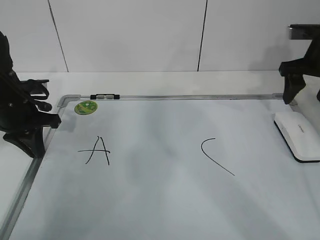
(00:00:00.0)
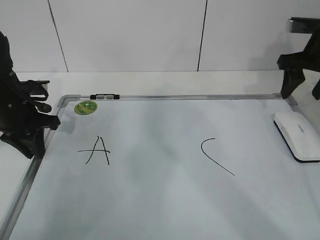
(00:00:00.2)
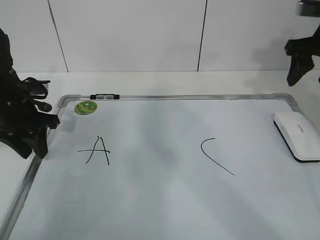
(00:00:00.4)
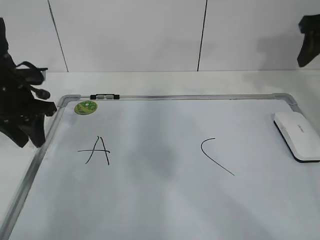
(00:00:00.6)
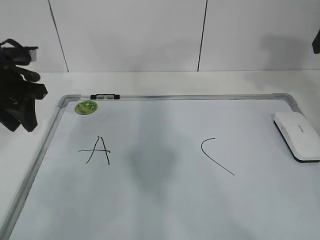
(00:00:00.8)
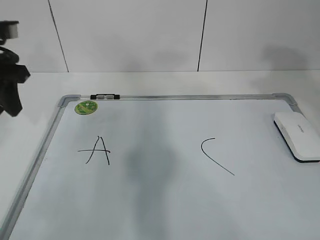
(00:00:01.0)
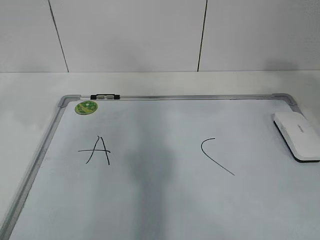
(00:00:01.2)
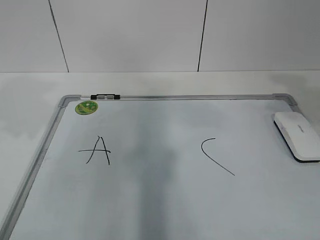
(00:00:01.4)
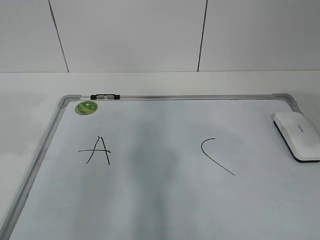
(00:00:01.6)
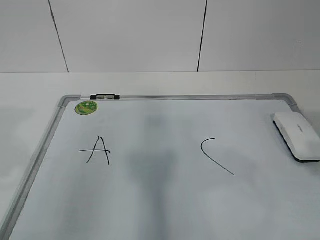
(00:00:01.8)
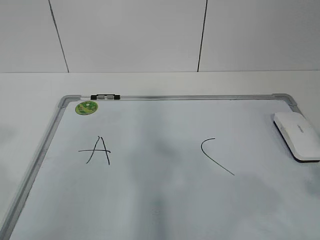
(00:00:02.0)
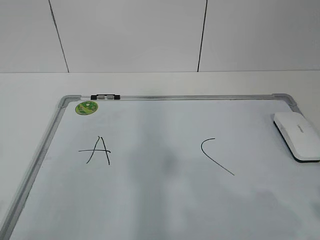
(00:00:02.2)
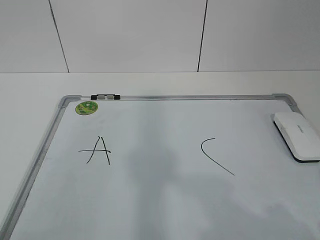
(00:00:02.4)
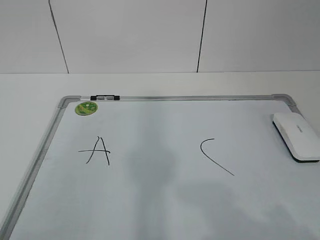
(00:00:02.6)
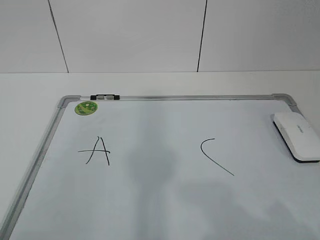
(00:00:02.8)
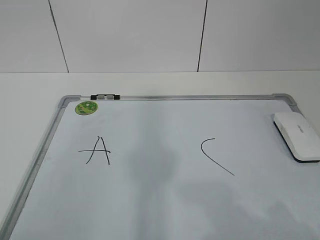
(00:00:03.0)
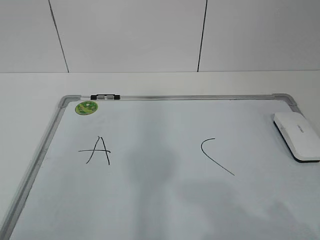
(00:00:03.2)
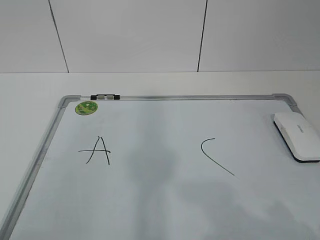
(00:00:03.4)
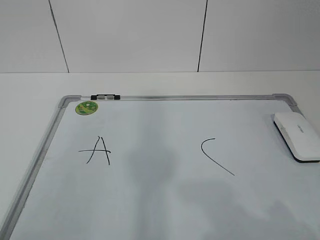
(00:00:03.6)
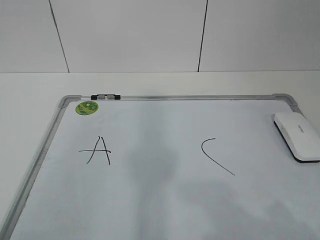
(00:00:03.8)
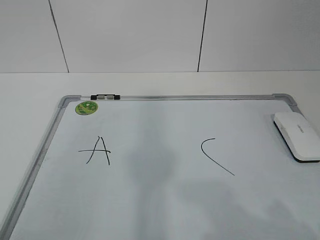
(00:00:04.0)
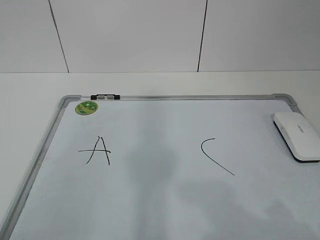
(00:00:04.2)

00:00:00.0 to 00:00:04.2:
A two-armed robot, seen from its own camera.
Task of the whole recording: pick up the eraser on the blackboard and erase the letter "B".
00:00:00.0 to 00:00:01.4: The right gripper moves backward and upward, about 25 cm, and closes its fingers; the left gripper heads upward and backward, covering about 20 cm, and opens its fingers.
00:00:01.4 to 00:00:02.8: The left gripper goes roughly 25 cm backward; the right gripper moves backward and downward, about 20 cm.
00:00:02.8 to 00:00:04.2: Both grippers stay about where they are.
